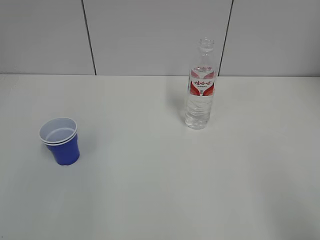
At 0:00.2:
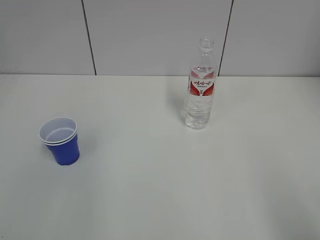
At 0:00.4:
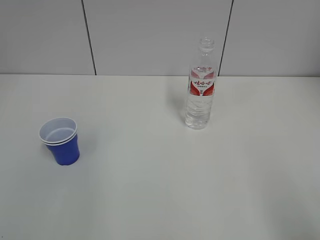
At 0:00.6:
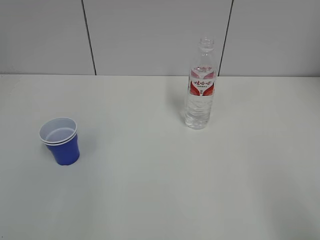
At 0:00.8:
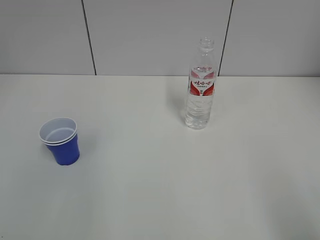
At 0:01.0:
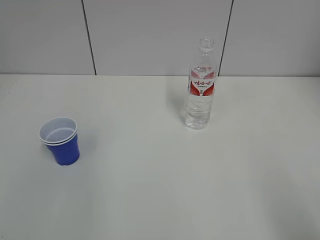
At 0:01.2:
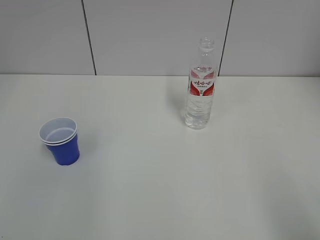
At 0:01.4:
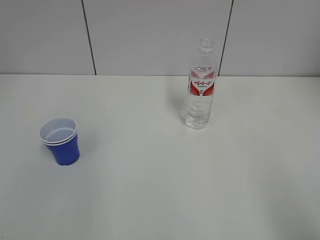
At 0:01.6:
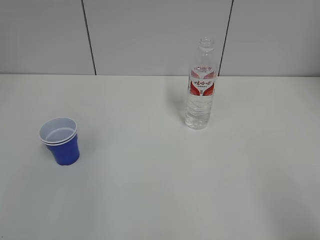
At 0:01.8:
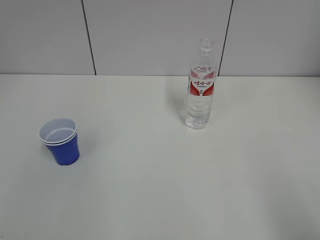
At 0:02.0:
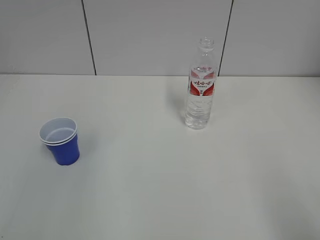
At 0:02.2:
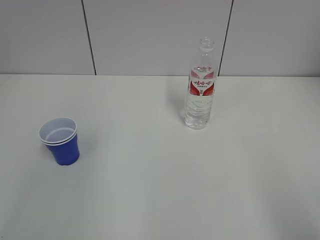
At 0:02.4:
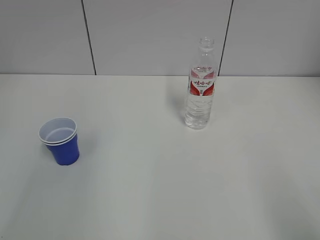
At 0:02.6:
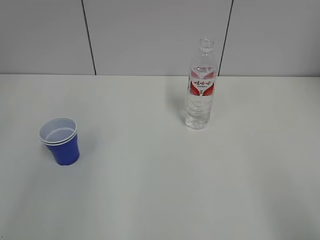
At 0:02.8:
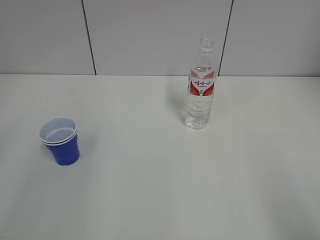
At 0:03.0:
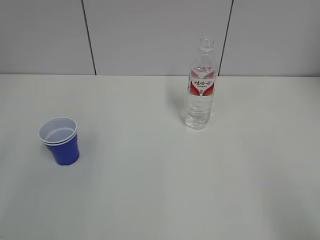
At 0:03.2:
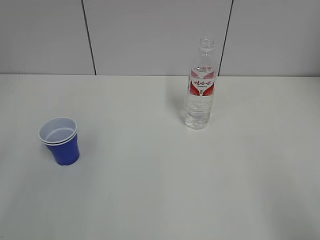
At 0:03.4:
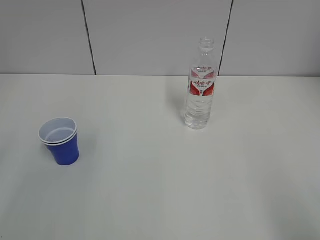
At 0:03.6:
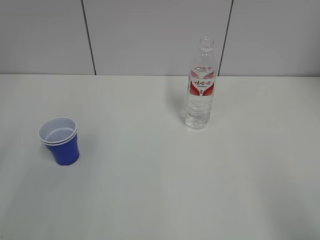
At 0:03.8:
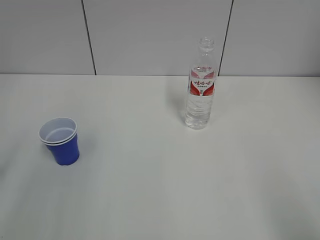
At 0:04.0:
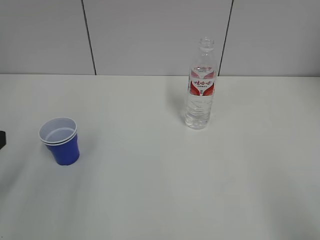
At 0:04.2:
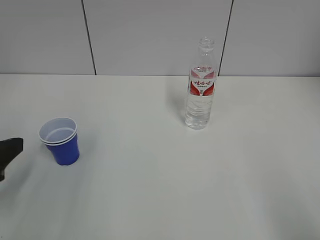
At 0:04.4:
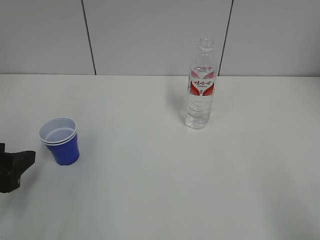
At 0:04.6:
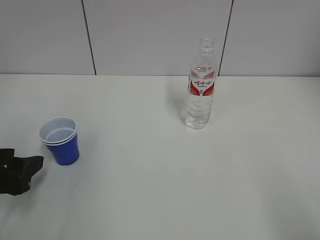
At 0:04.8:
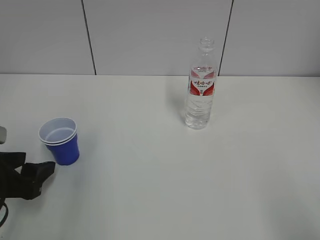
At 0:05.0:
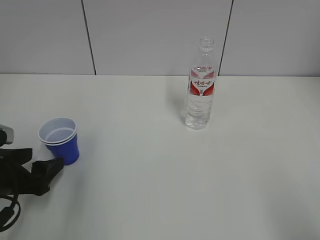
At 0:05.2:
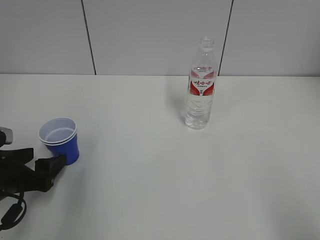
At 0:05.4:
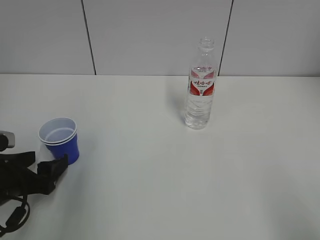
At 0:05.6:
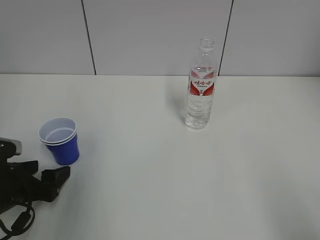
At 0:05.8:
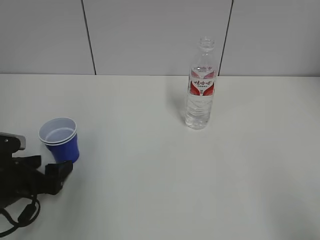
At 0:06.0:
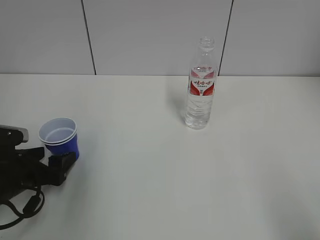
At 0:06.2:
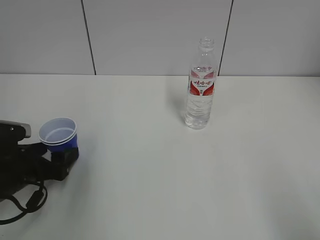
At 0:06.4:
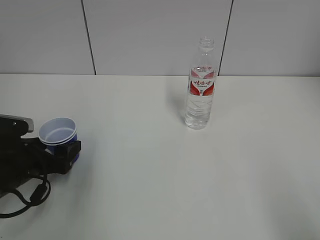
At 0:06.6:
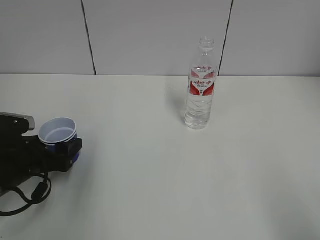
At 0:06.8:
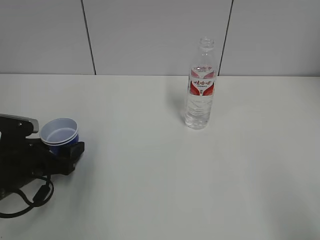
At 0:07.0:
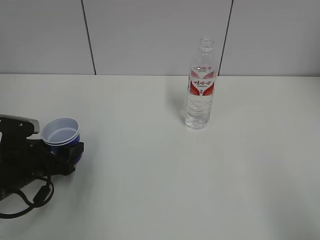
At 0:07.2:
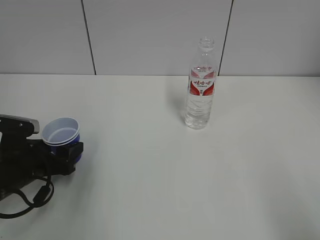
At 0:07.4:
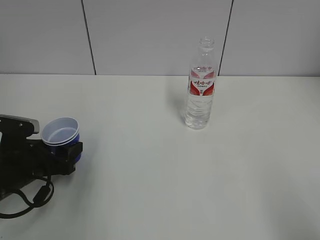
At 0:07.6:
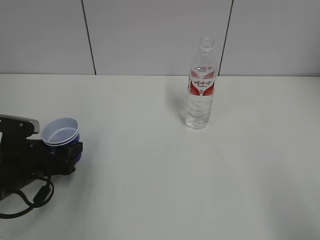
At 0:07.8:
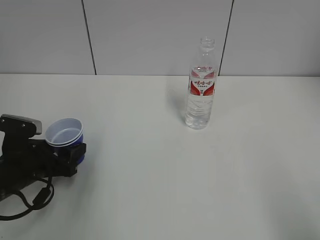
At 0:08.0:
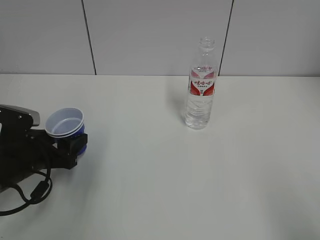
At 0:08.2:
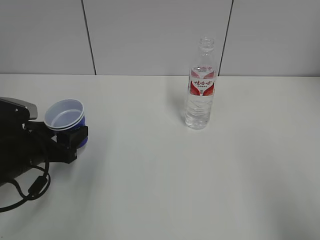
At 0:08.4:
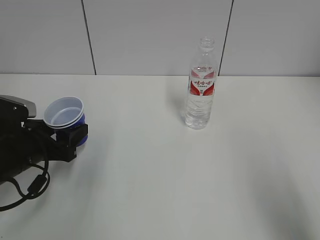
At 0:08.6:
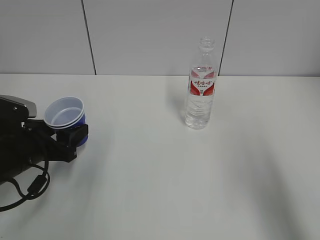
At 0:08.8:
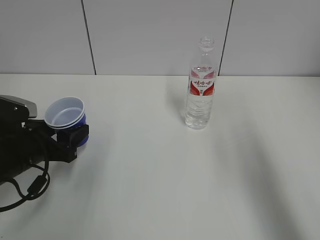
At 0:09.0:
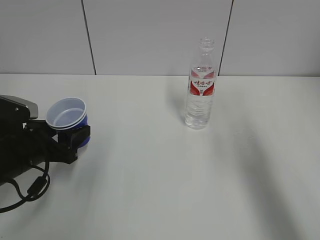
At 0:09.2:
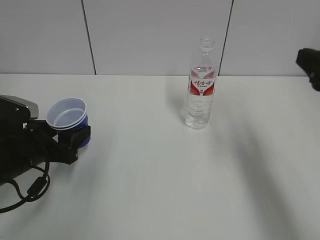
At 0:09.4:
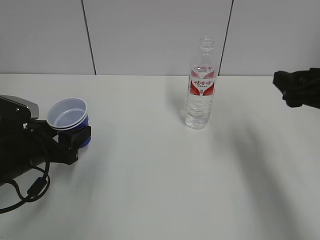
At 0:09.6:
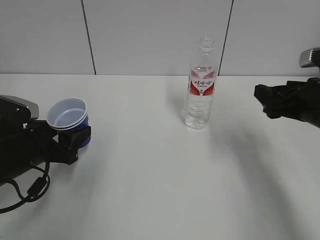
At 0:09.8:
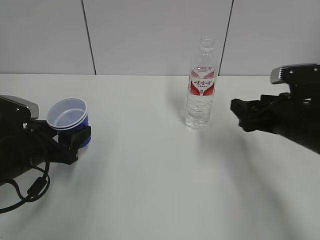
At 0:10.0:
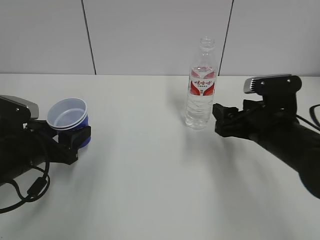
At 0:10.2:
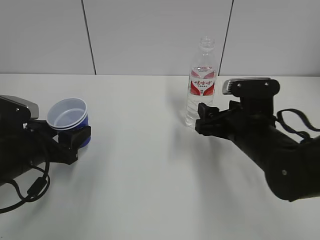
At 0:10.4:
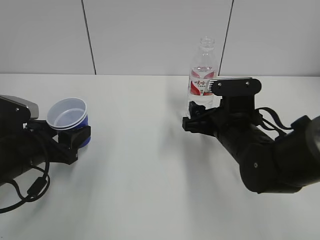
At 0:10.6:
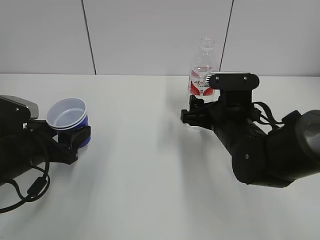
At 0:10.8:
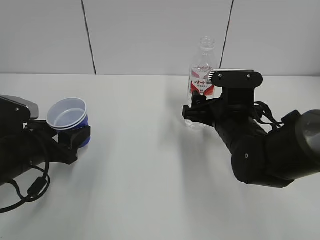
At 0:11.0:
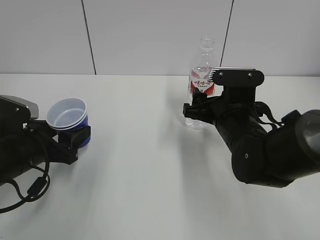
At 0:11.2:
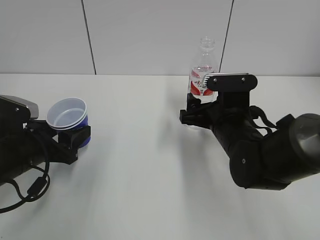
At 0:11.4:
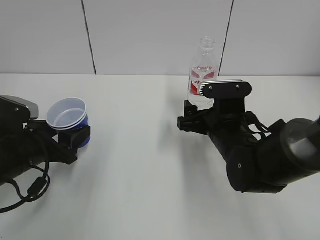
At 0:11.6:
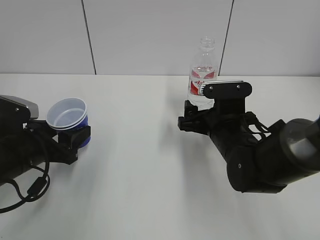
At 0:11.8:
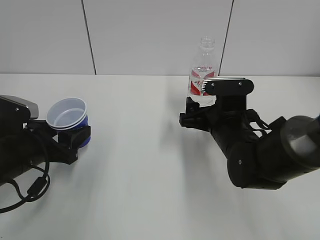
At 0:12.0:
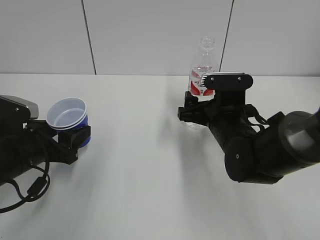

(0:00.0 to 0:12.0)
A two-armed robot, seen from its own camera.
Step, 0:00.0 - 0:07.2: Grab the paper cup with the left hand.
0:03.0 - 0:04.4: The left gripper heads forward and downward, covering some 10 cm.
0:04.4 - 0:06.0: The left gripper moves downward and forward, roughly 10 cm, and opens.
0:06.0 - 0:07.6: The left gripper closes up.
0:07.6 - 0:09.0: The right gripper goes about 20 cm forward.
0:09.0 - 0:10.4: The right gripper moves downward, to the left and forward, approximately 25 cm.
0:10.4 - 0:12.0: The right gripper opens its fingers.

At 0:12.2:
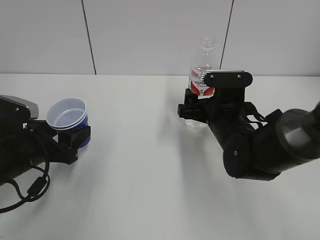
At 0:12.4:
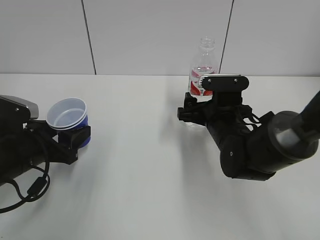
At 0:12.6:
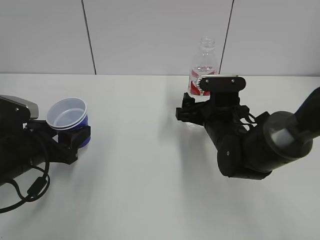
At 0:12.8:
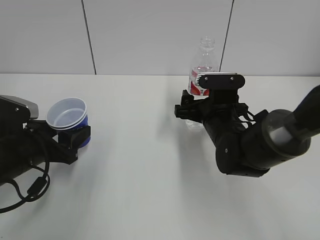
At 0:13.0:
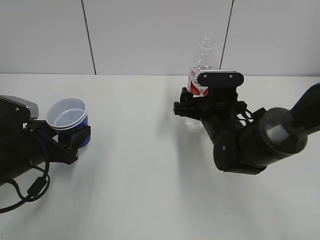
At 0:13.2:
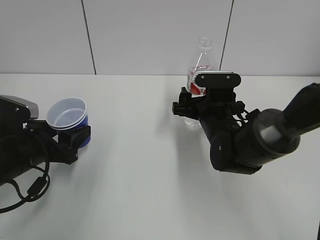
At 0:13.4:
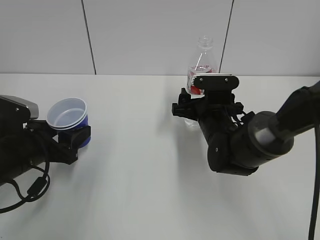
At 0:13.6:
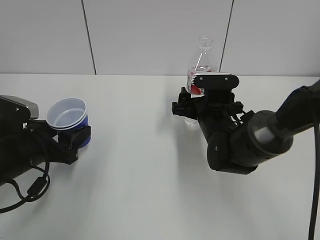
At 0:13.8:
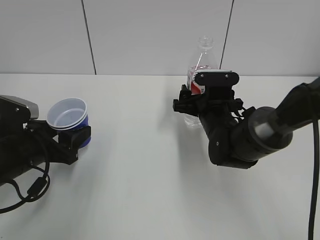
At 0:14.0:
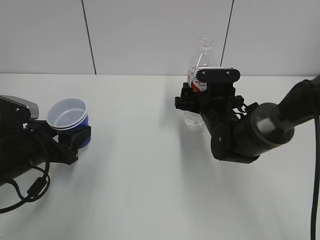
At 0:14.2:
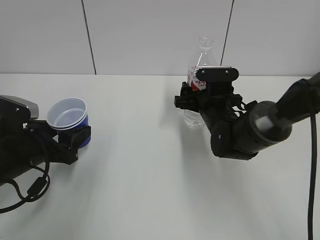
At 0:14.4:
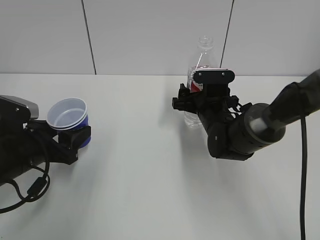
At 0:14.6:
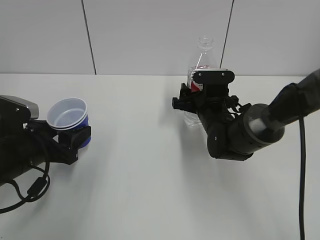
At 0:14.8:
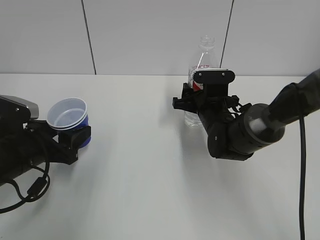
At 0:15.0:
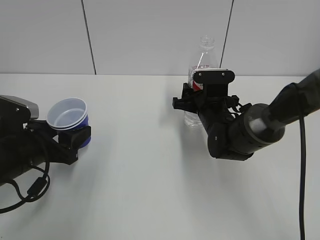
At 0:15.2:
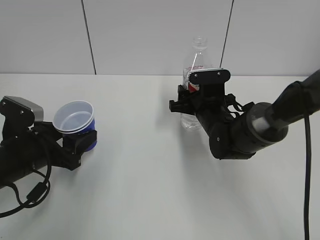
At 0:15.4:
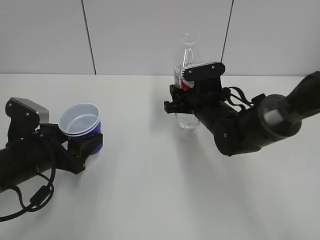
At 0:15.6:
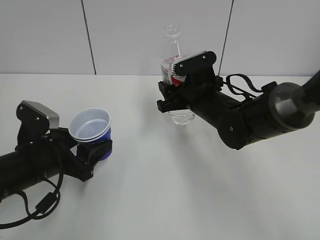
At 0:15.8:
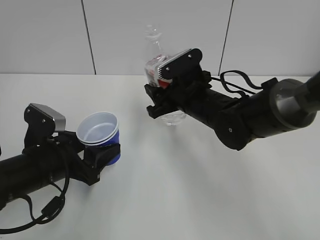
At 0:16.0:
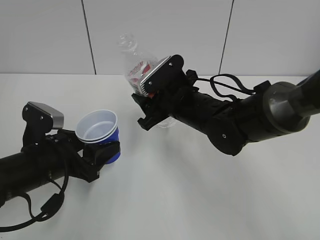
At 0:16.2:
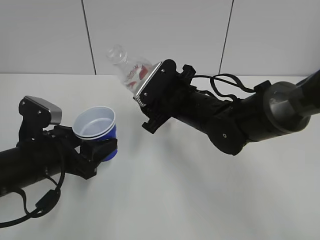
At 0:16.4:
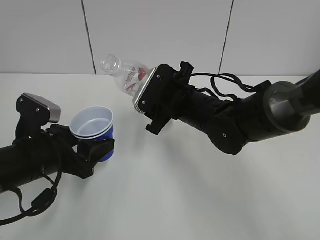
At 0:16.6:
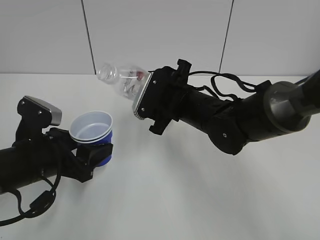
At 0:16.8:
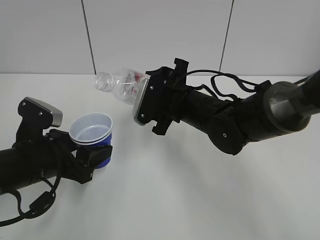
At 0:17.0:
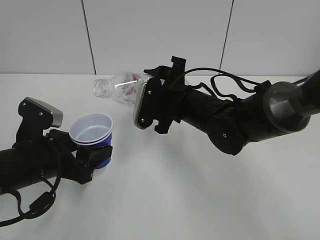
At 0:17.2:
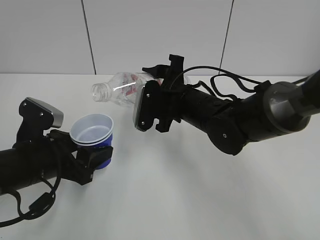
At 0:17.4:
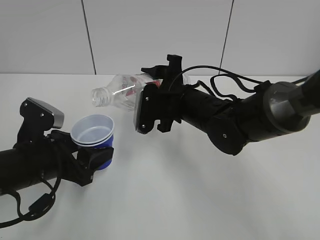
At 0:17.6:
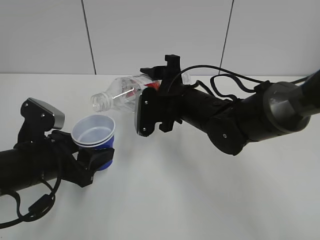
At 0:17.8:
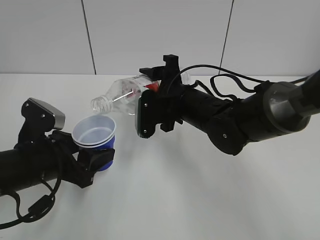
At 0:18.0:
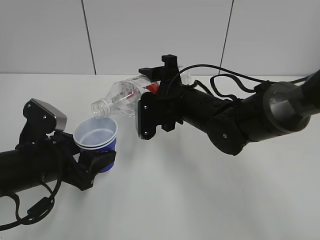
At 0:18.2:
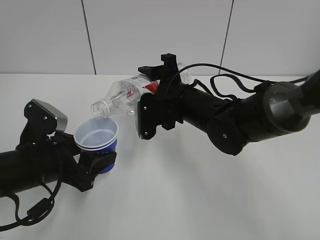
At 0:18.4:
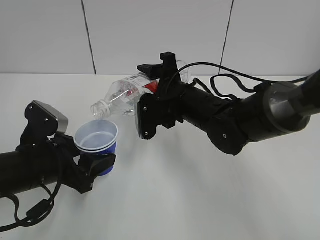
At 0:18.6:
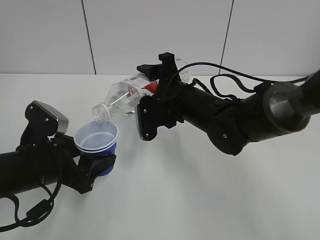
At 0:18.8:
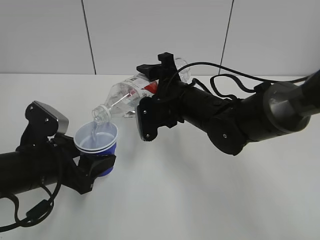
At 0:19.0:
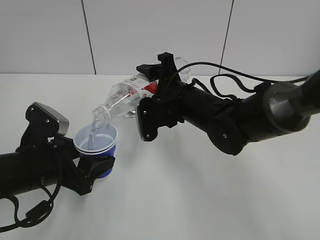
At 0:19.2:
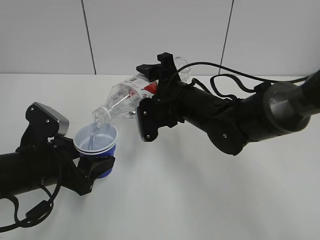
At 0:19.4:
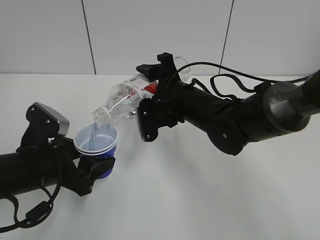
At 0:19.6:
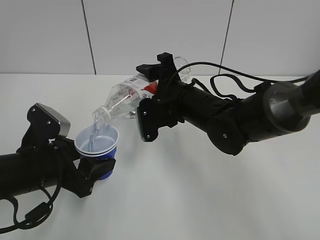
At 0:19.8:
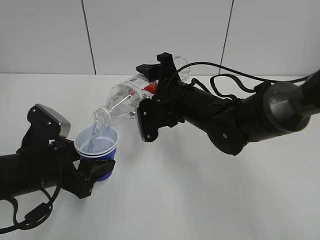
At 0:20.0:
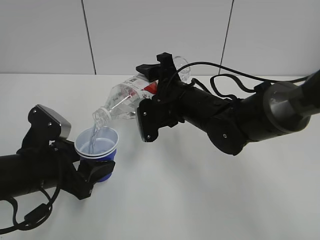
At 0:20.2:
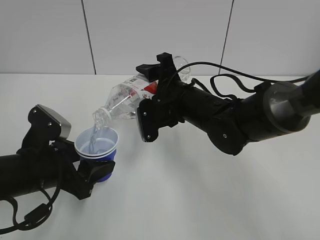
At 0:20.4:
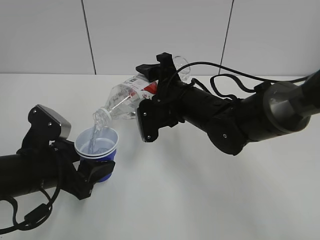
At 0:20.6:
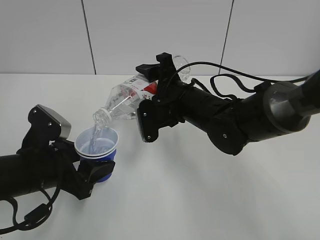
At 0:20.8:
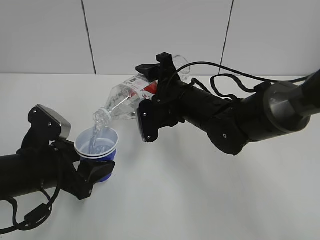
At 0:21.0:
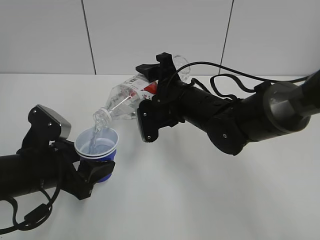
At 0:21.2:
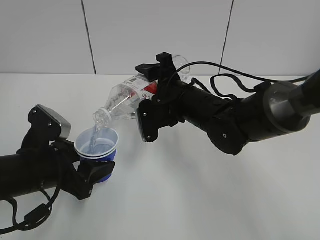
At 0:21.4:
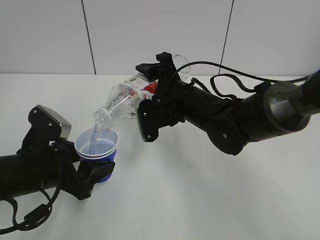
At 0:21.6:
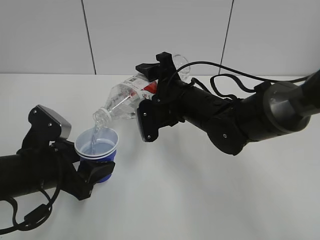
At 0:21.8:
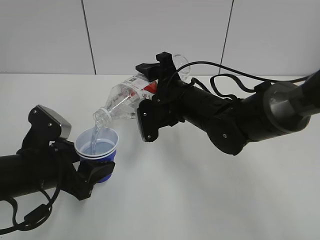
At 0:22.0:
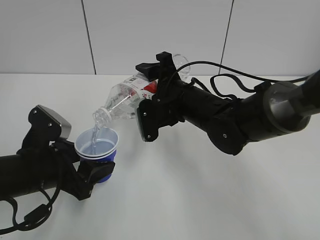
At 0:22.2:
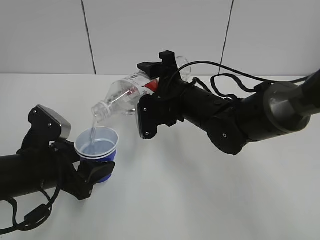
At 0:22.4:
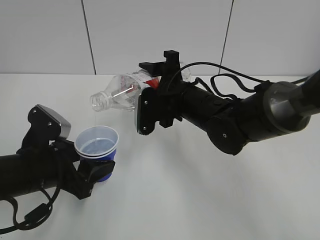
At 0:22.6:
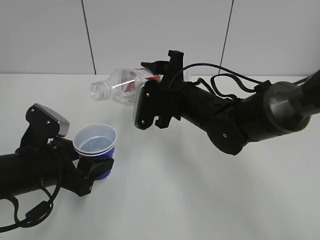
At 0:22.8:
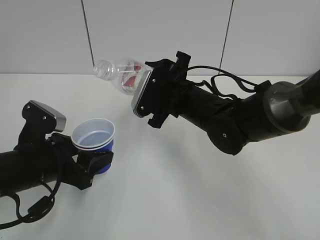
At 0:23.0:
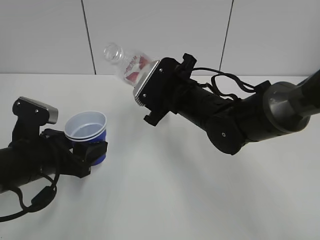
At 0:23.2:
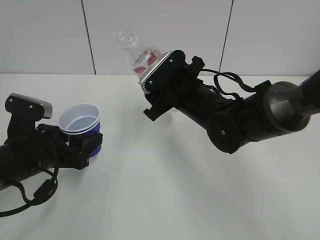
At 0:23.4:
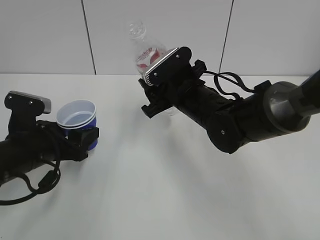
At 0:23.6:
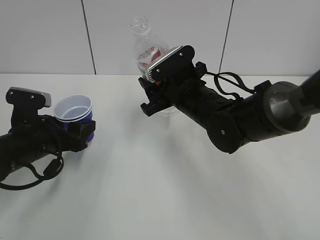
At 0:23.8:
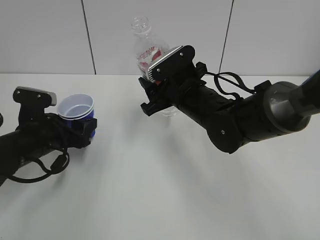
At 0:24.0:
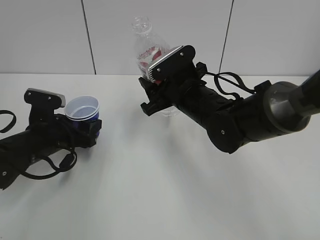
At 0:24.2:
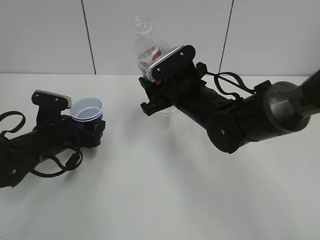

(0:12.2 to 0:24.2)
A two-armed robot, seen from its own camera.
Step, 0:12.2 - 0:15.0: Grab the water bottle with the right hand.
Step, 0:15.2 - 0:18.6: Lift the paper cup with the left hand.
Step, 0:18.8 - 0:22.4: Fill water with the left hand.
Step, 0:18.8 - 0:22.4: Pour water with the right hand.
0:12.2 - 0:13.8: The grippers move only a little.
0:13.8 - 0:15.2: The right gripper closes.
0:15.2 - 0:16.6: The right gripper travels upward and to the left by approximately 10 cm.
0:18.2 - 0:19.8: The grippers stay close to where they were, moving slightly.
0:19.8 - 0:21.2: Neither gripper changes place.
0:22.6 - 0:24.2: The left gripper moves forward, some 10 cm.
